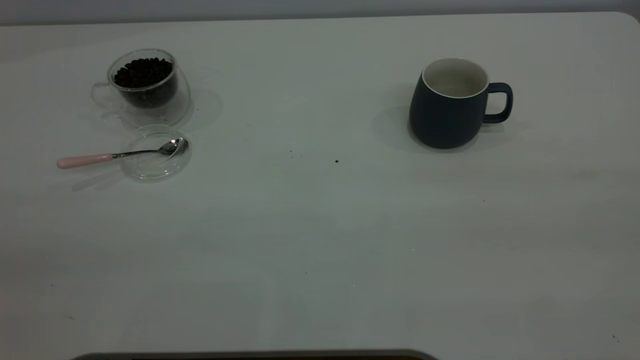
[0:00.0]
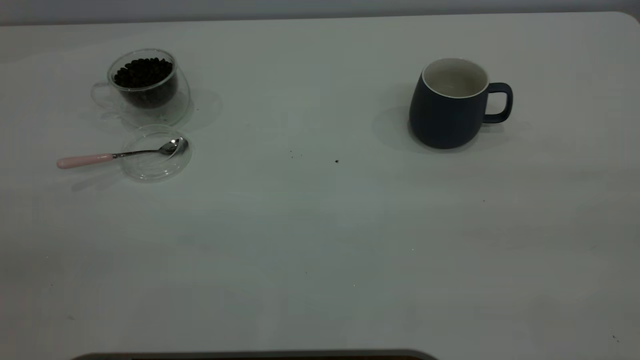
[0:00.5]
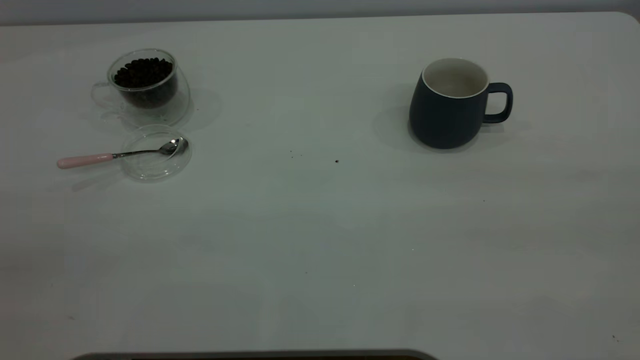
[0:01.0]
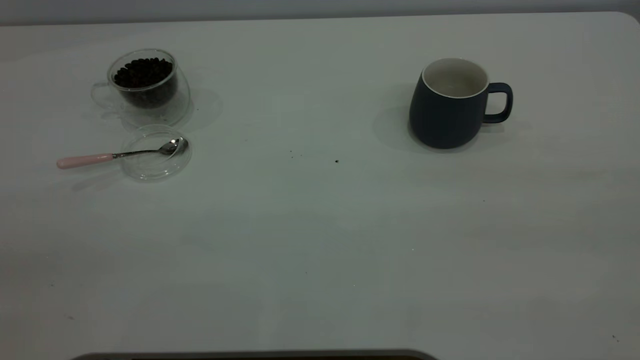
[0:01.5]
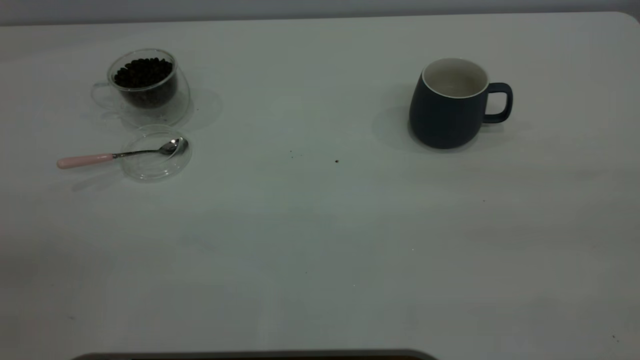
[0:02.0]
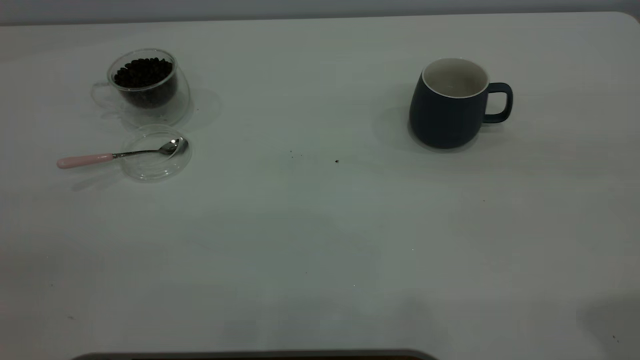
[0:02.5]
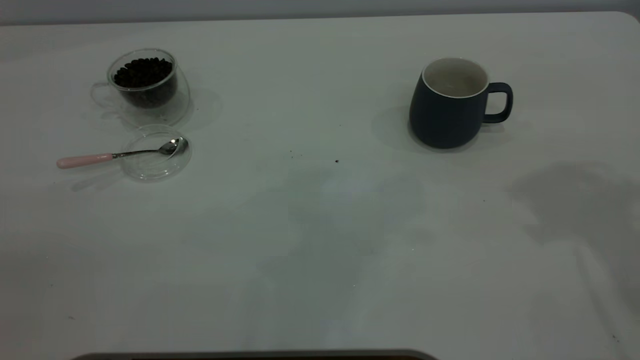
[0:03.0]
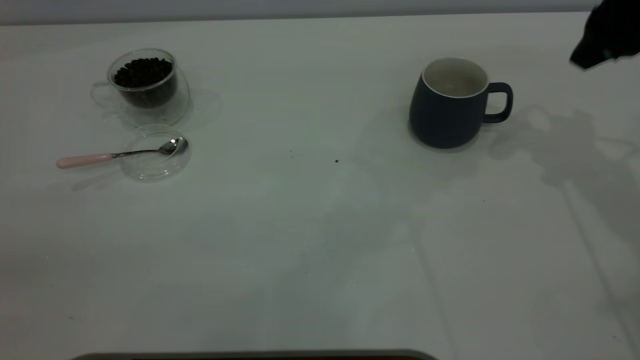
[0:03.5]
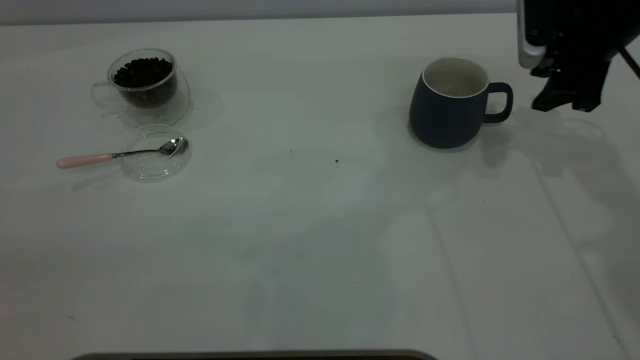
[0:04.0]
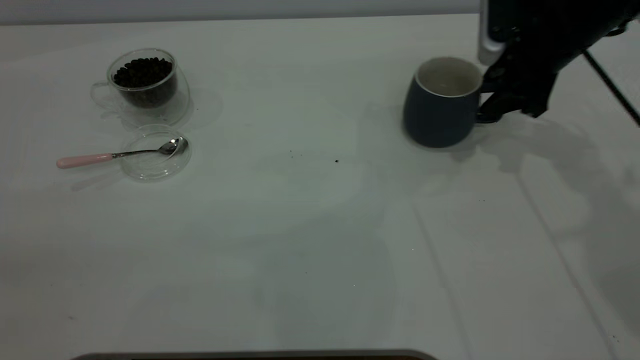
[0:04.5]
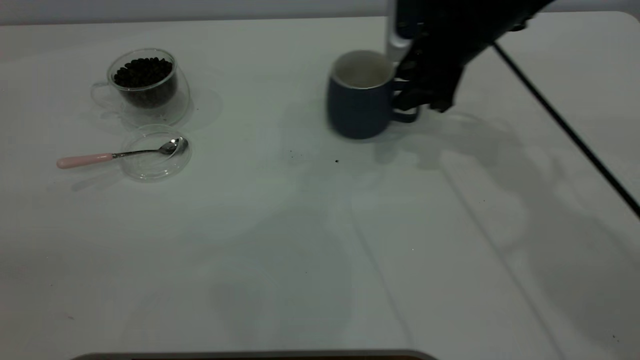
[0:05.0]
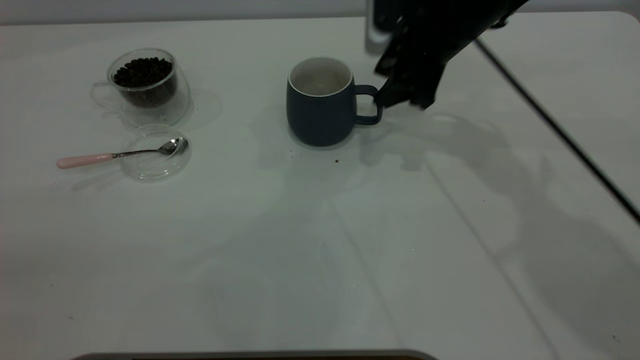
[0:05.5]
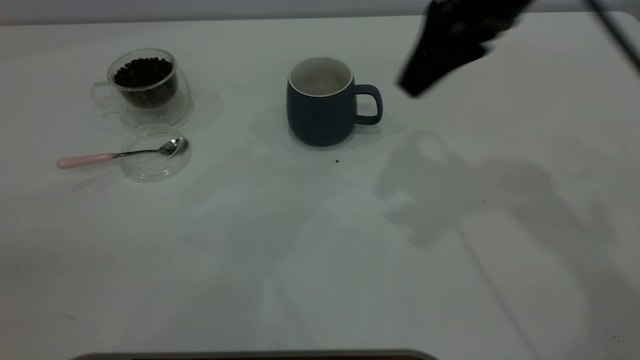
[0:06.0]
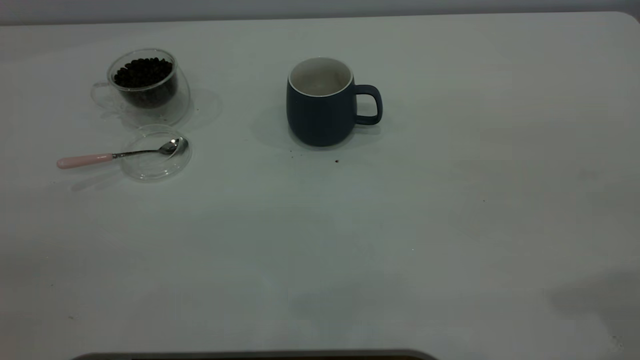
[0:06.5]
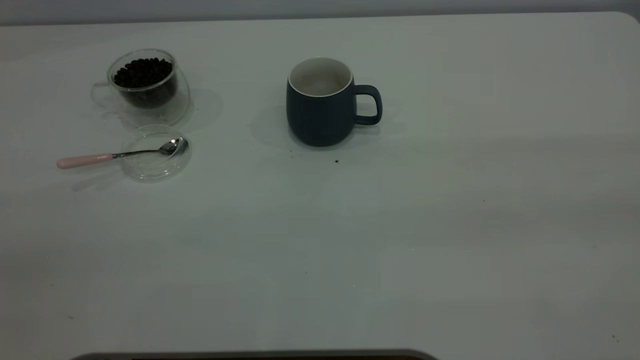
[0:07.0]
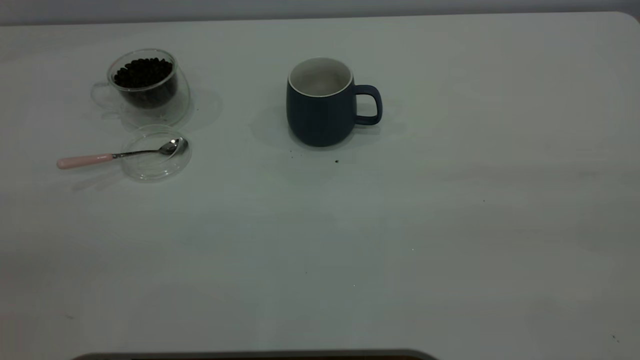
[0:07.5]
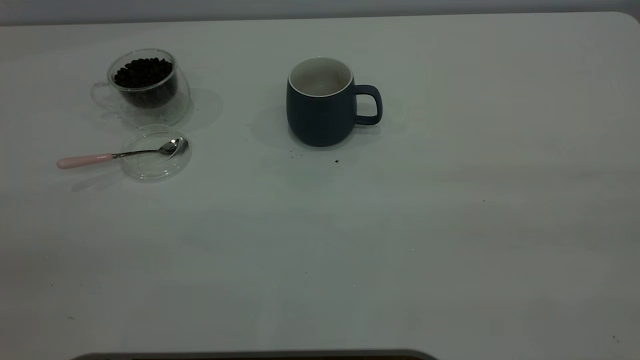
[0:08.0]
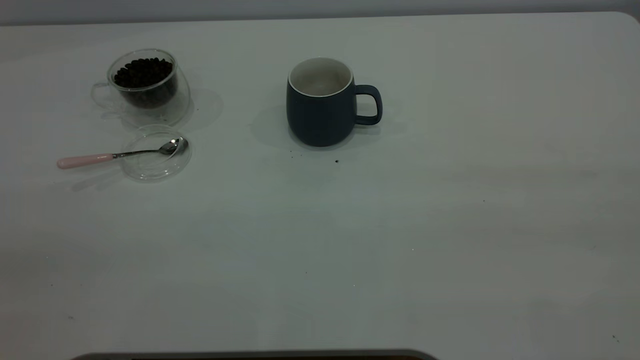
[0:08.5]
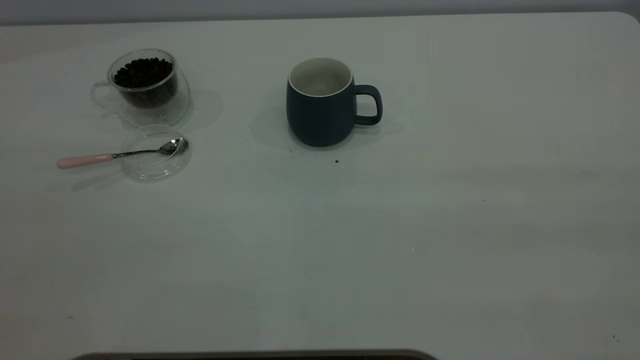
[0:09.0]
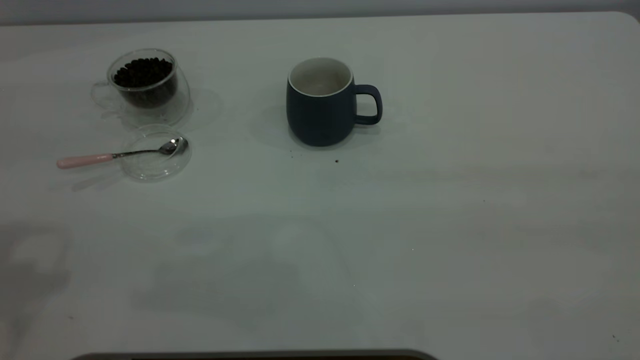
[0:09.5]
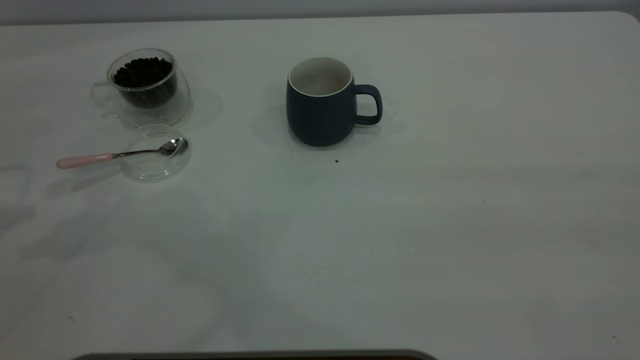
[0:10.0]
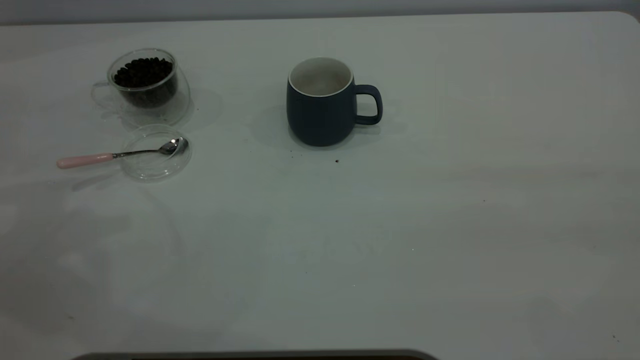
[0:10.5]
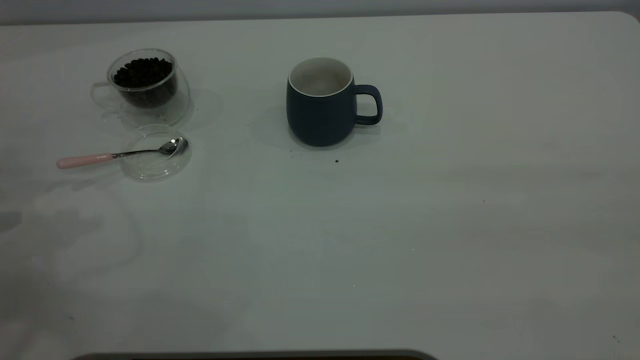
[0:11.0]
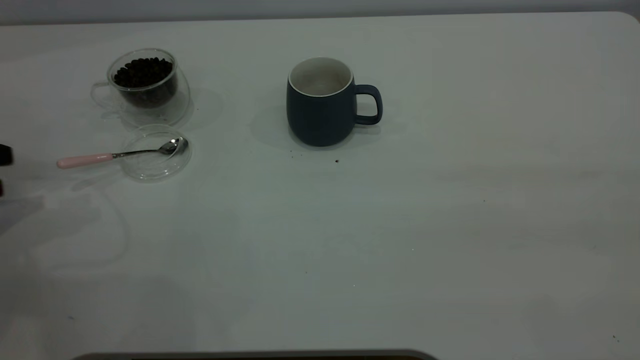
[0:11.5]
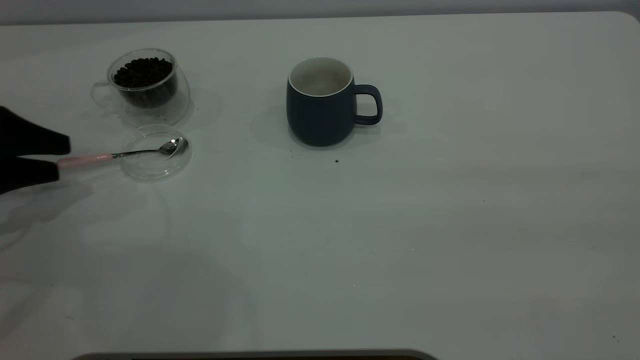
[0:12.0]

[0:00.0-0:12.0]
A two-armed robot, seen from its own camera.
Task of the whole recording: the right gripper place the grey cup in the center of the table, the left gripper take the pink spoon from the cup lid and scoop out the coffee beans from the coffee cup and put them into the grey cup, the left gripper put the spoon back into the cup lid.
Step, 0:00.0 to 0:05.5: Move the cup to the center of view.
0:00.0 to 0:02.0: Both grippers stay put.
0:02.0 to 0:04.0: The right gripper is displaced forward and downward by approximately 50 cm.
0:04.0 to 0:06.0: The right gripper heads upward, to the left and backward, covering roughly 20 cm.
0:06.0 to 0:08.0: The right gripper moves backward and to the right, roughly 35 cm.
0:10.0 to 0:12.0: The left gripper is displaced downward by approximately 15 cm, and opens up.

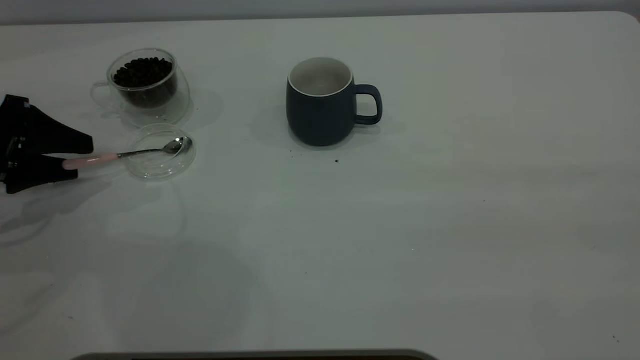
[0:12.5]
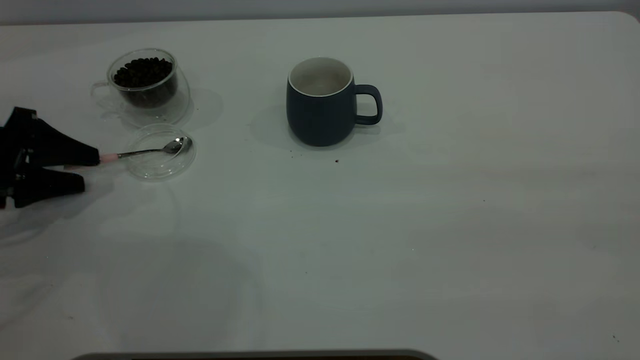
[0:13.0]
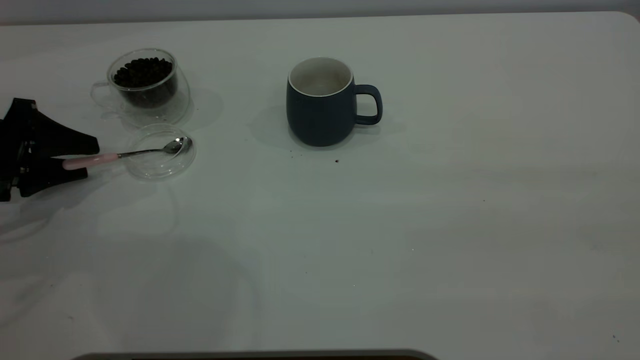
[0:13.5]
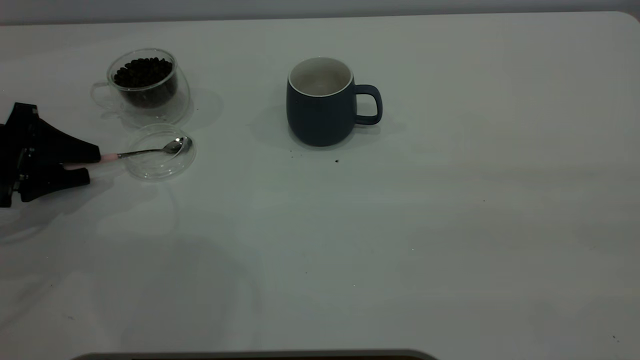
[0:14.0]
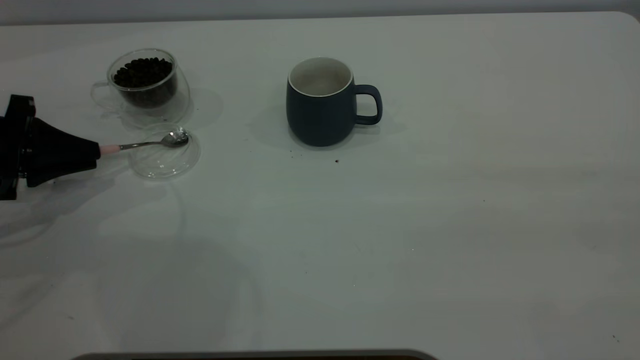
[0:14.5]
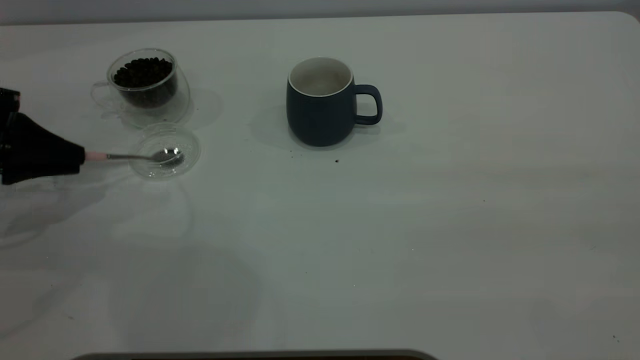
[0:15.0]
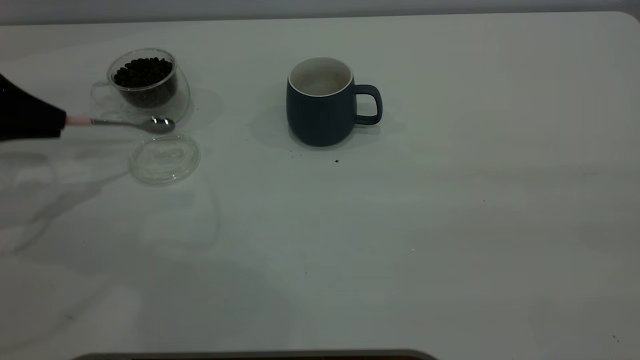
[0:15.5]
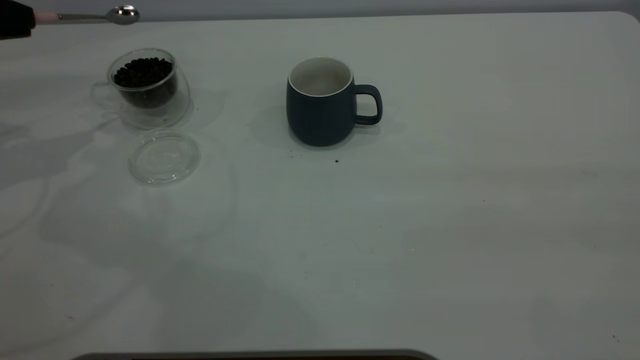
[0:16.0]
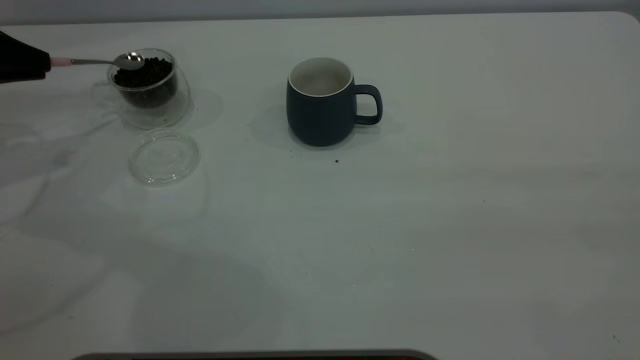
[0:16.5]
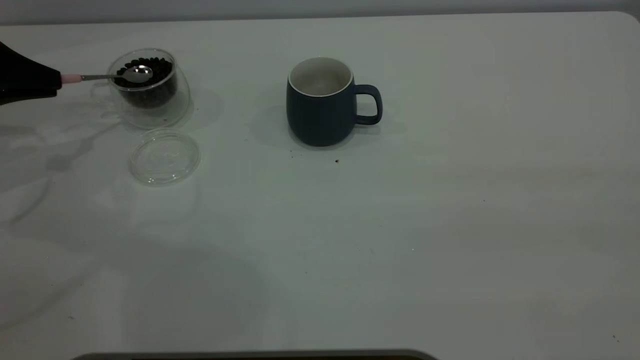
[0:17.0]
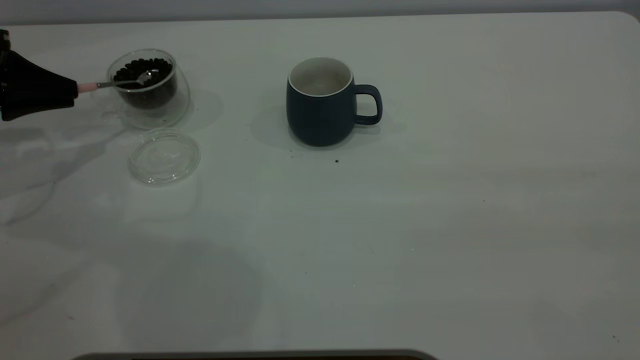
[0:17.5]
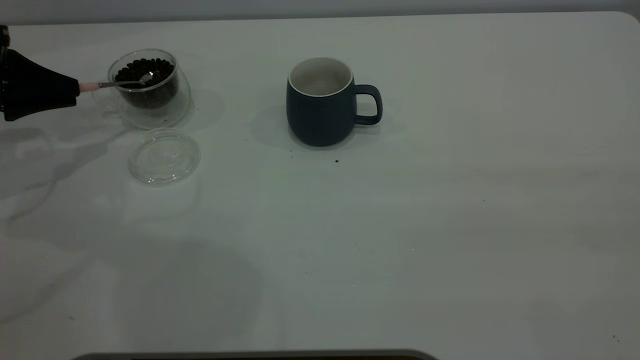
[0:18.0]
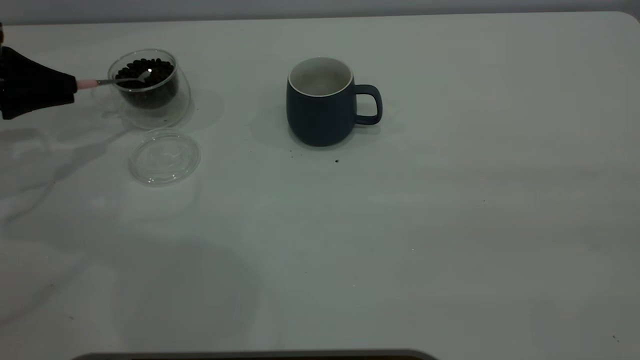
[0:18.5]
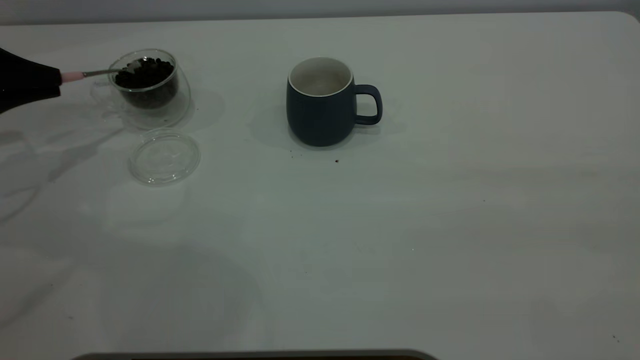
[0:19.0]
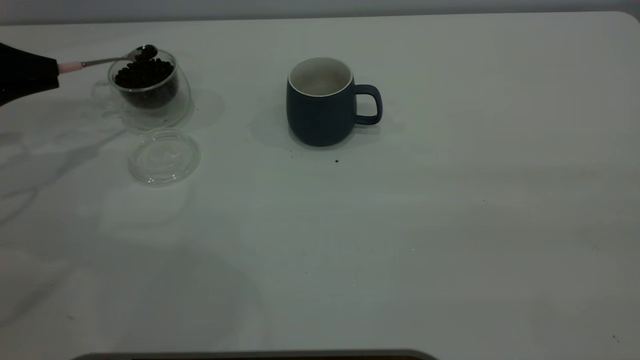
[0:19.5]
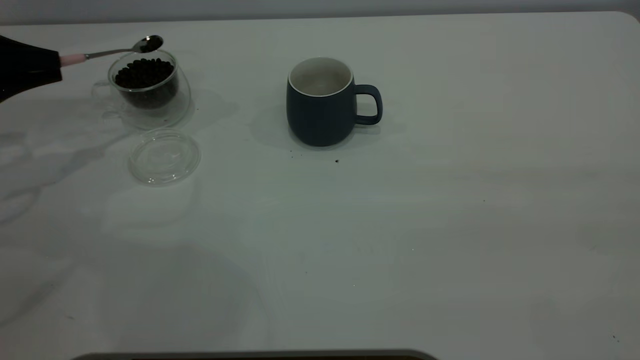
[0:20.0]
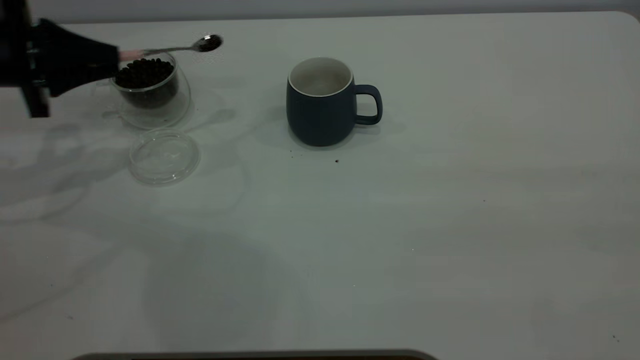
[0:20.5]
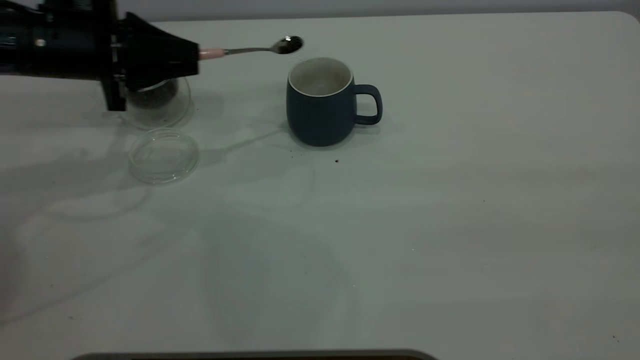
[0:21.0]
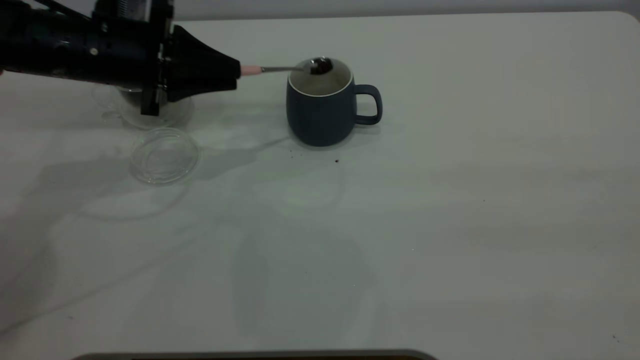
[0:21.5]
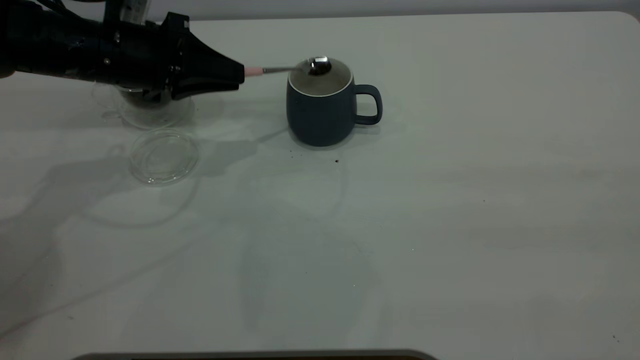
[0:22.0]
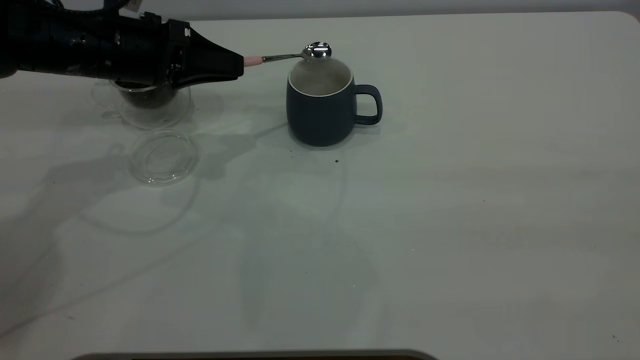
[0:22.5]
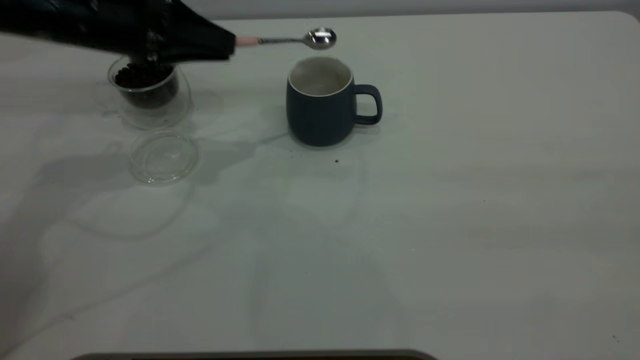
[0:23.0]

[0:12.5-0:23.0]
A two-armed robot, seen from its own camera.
Task of the whole recording: the right gripper place the grey cup in the center of the table, the left gripper take the pink spoon from the cup lid and scoop out the coffee beans from the coffee cup and put them into the grey cup, the left gripper put the spoon back into the cup lid.
Step, 0:12.5 to 0:15.5: Pick up the spoon.
Step, 0:16.0 to 0:22.5: Scoop a spoonful of beans into the cup.
0:12.5 to 0:14.5: The left gripper closes up.
0:14.5 to 0:16.5: The left gripper shifts about 10 cm upward and forward.
0:16.5 to 0:19.0: The grippers move only a little.
0:19.0 to 0:21.0: The left gripper moves to the right, approximately 15 cm.
0:21.0 to 0:23.0: The left gripper changes place by some 5 cm.
